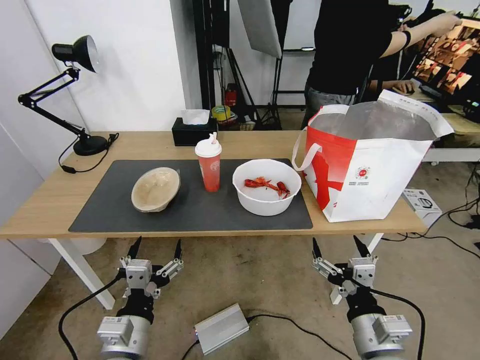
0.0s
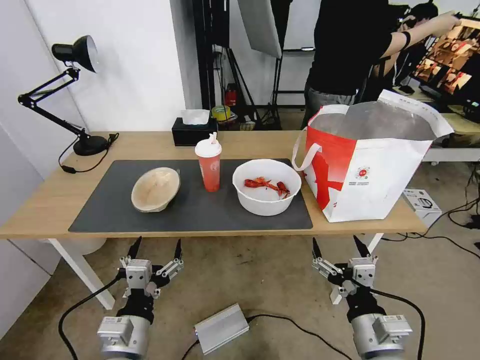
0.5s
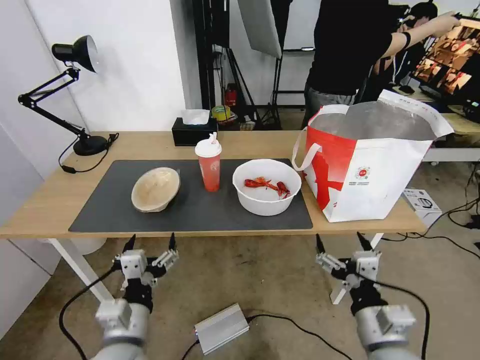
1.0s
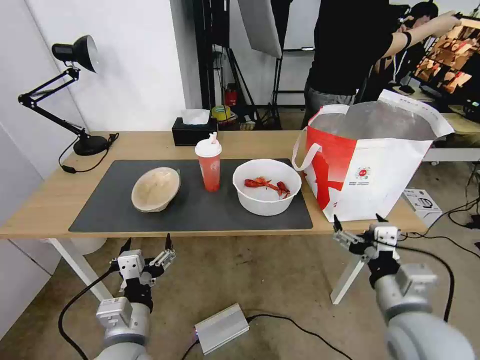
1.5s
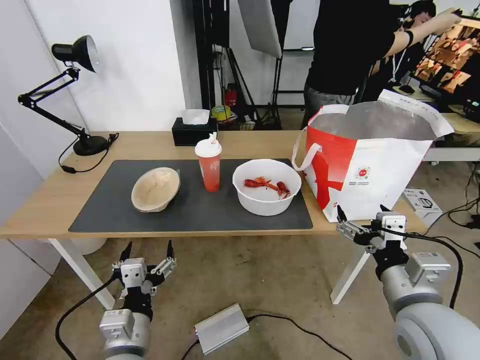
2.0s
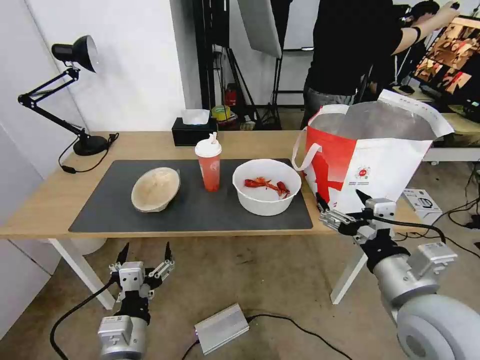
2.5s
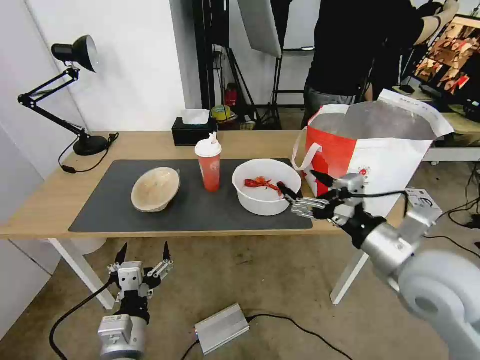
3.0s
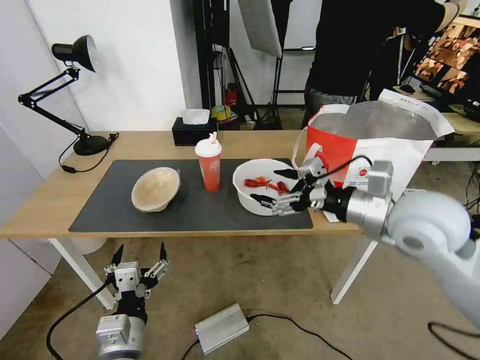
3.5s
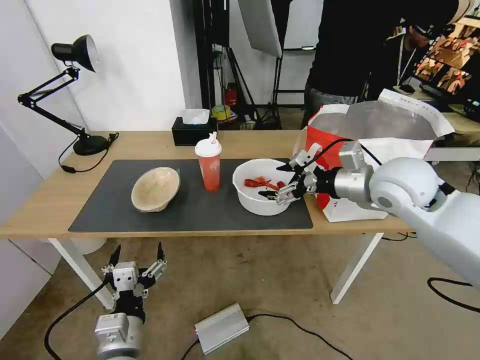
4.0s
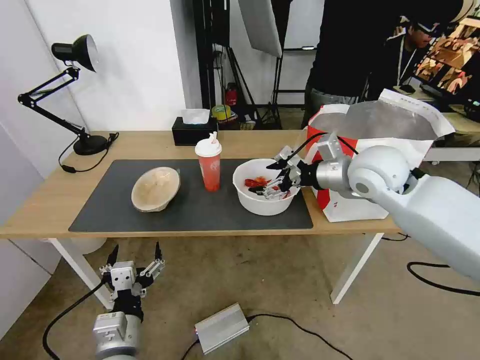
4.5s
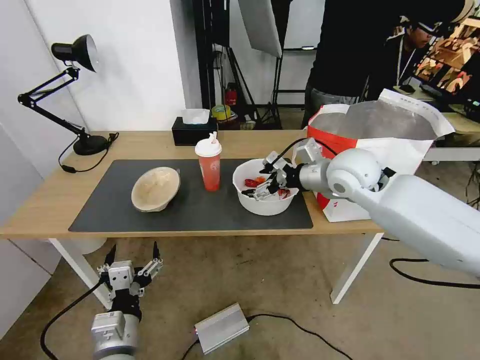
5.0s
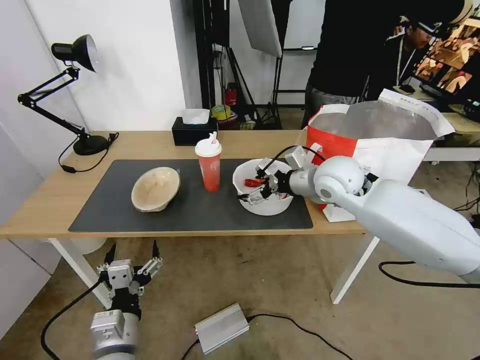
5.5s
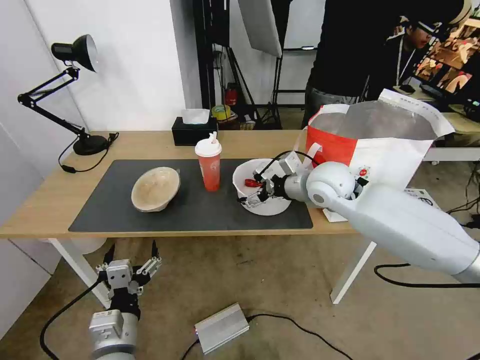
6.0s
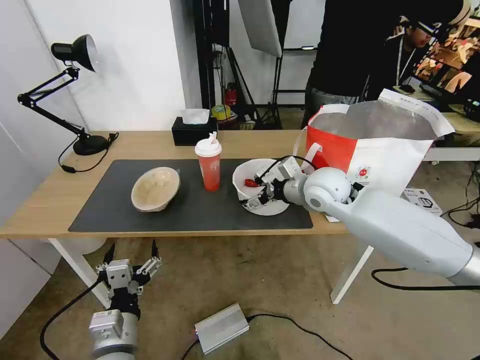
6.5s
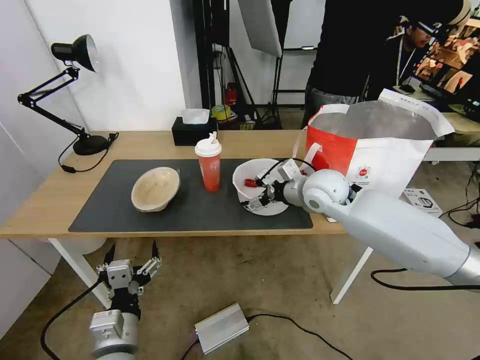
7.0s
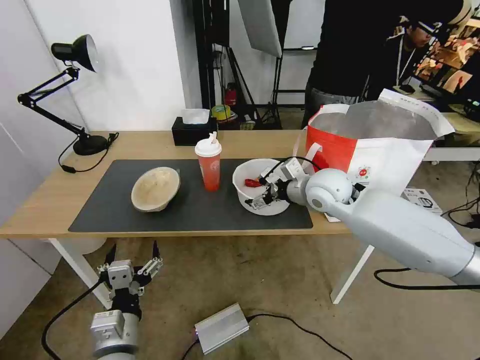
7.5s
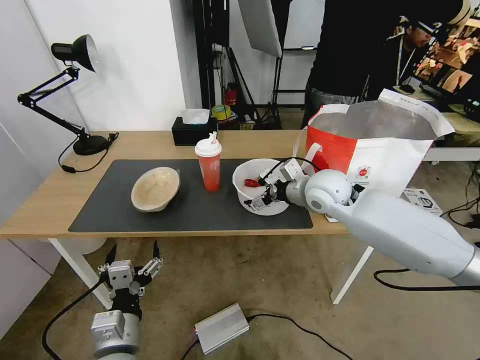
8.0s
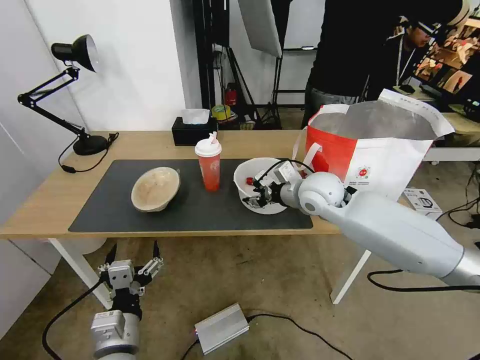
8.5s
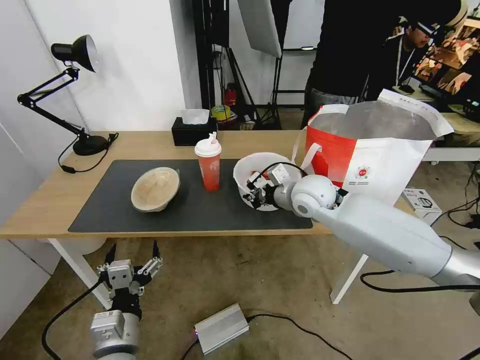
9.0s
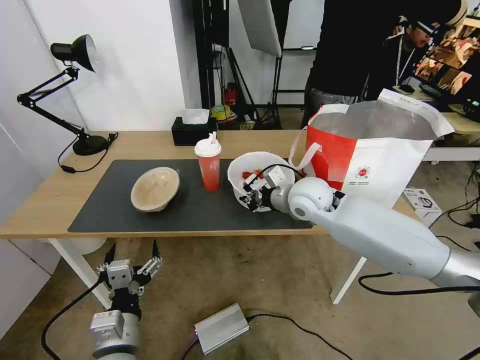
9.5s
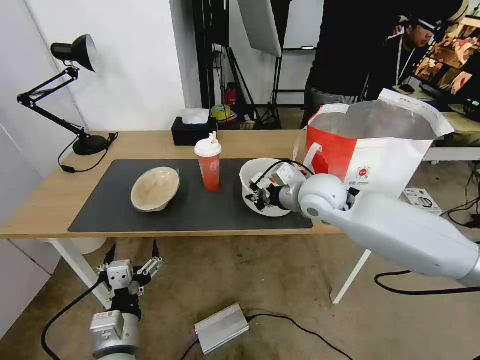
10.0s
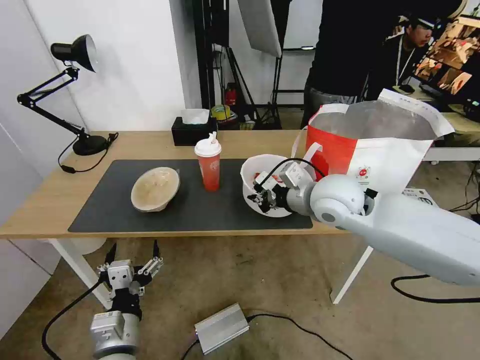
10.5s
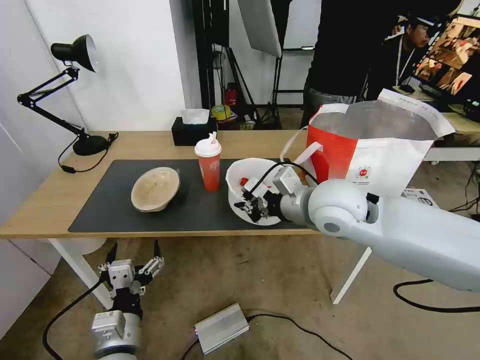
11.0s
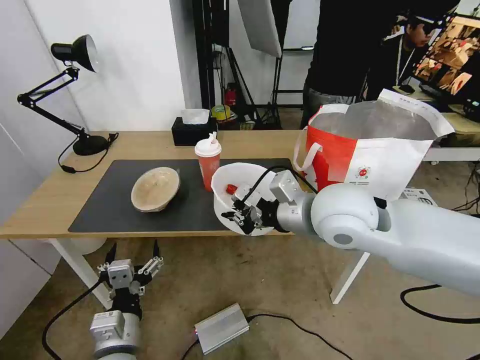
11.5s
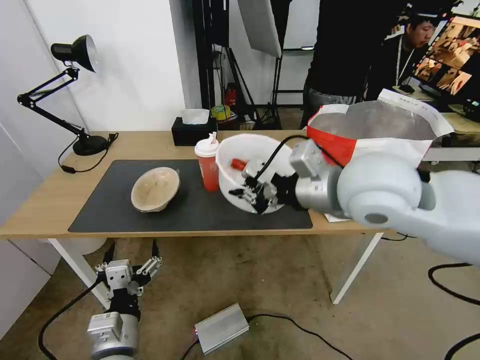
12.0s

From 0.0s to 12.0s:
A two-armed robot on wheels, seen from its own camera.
Task of the whole recording: Pick up the trash from the table and place it into the takeout bag.
From 2.0s to 4.0s: The right gripper is displaced forward and upward by about 25 cm.
From 4.0s to 6.0s: The right gripper is displaced to the left, forward and downward by approximately 15 cm.
From 6.0s to 8.0s: The grippers move only a little.
From 8.0s to 10.0s: The right gripper closes up.
From 10.0s to 12.0s: The right gripper moves upward and backward, roughly 15 cm.

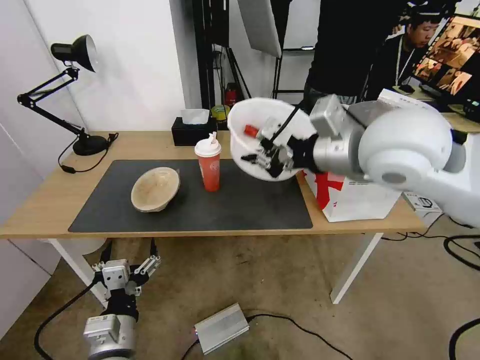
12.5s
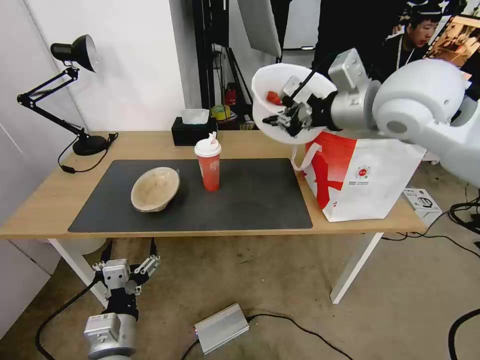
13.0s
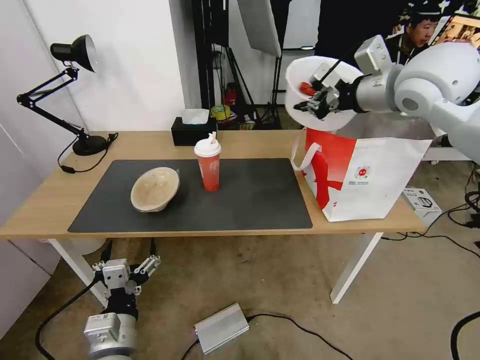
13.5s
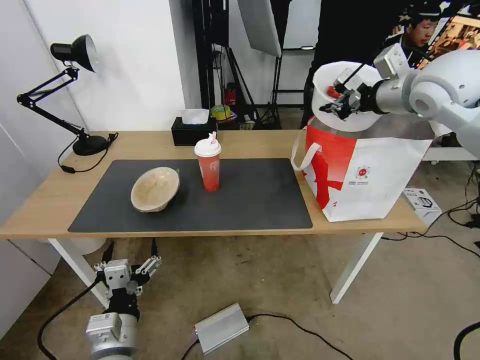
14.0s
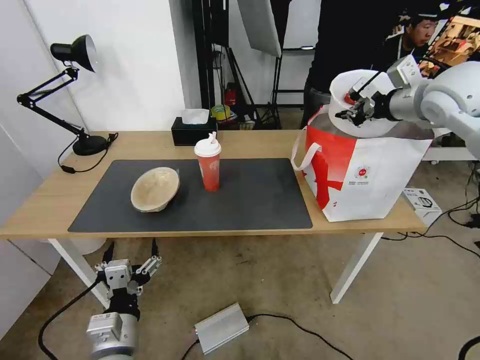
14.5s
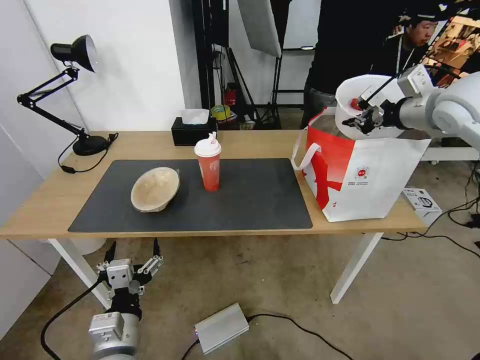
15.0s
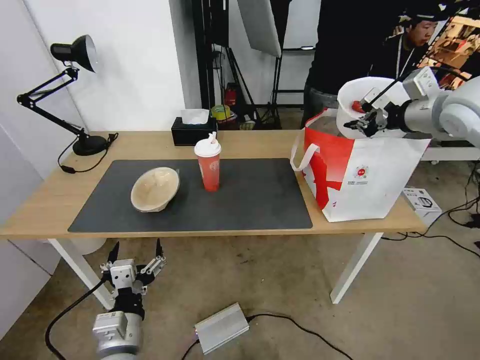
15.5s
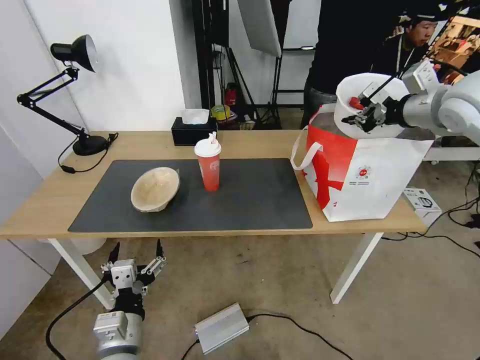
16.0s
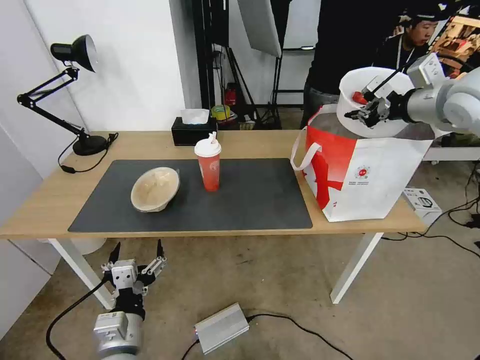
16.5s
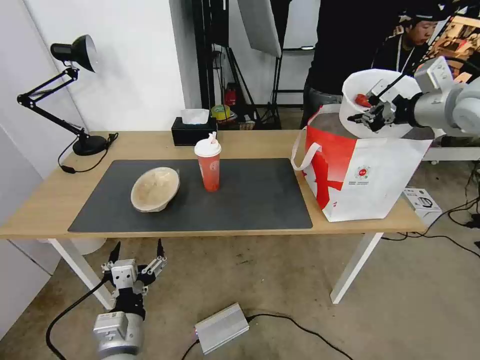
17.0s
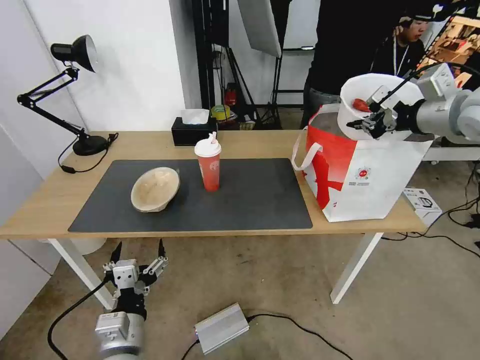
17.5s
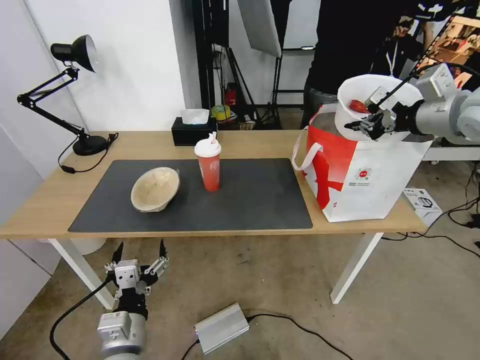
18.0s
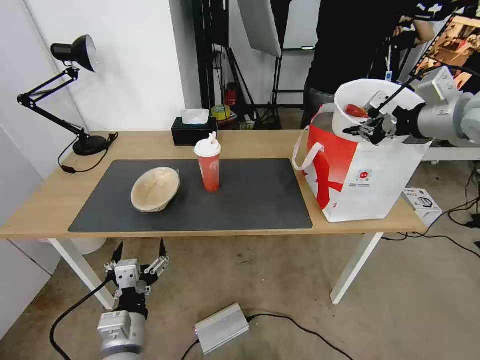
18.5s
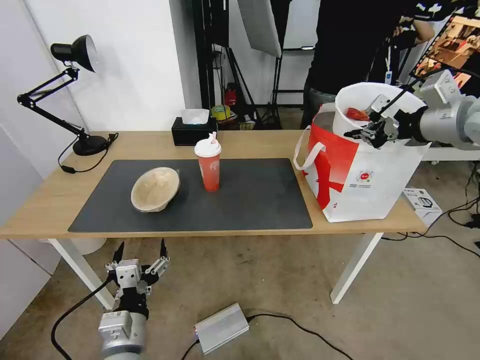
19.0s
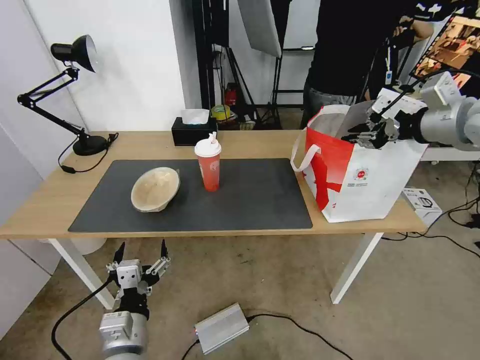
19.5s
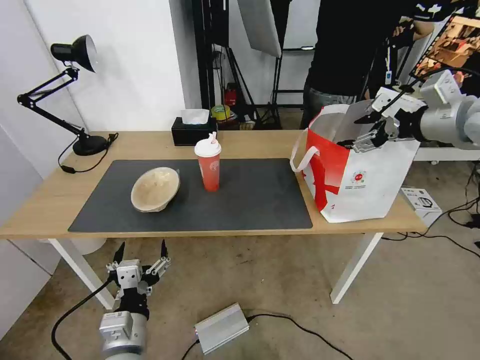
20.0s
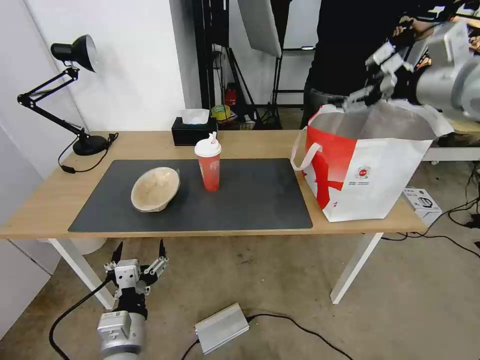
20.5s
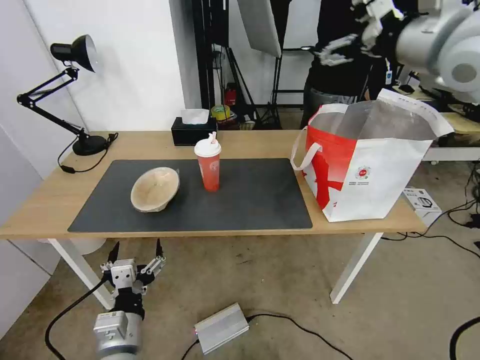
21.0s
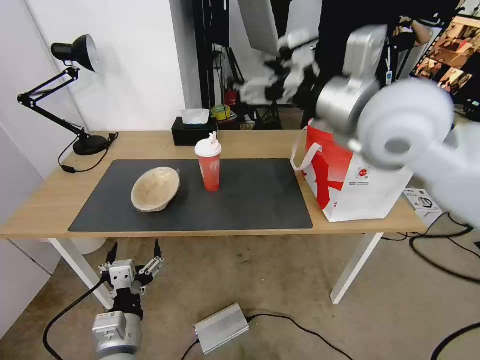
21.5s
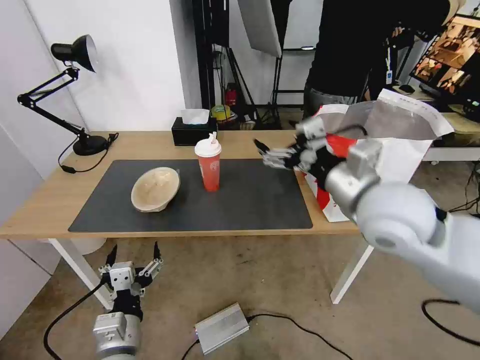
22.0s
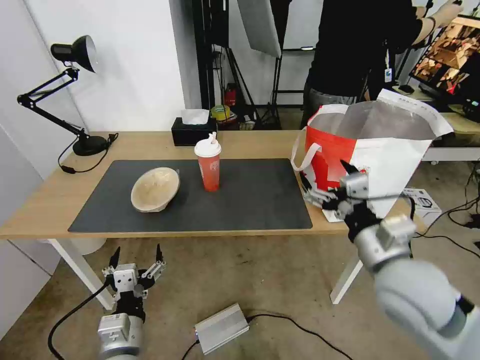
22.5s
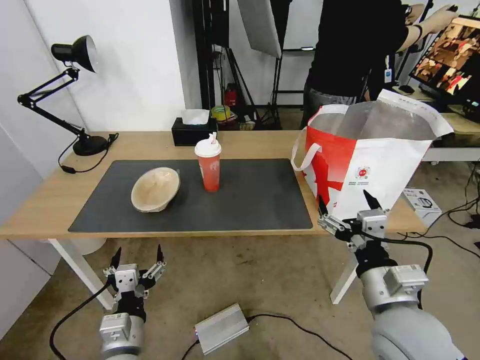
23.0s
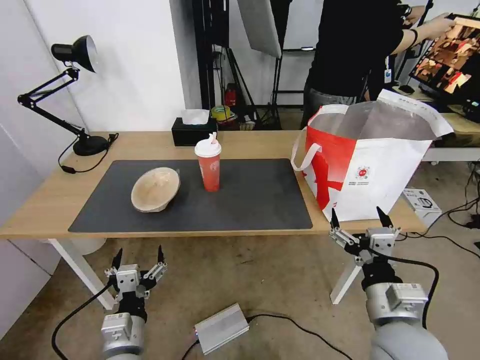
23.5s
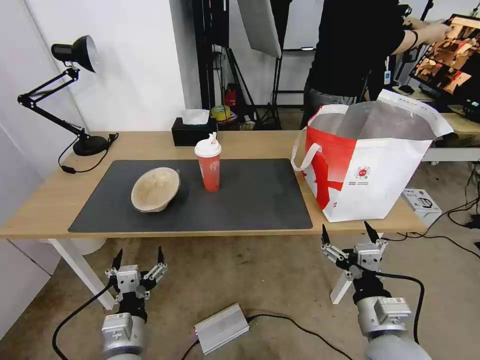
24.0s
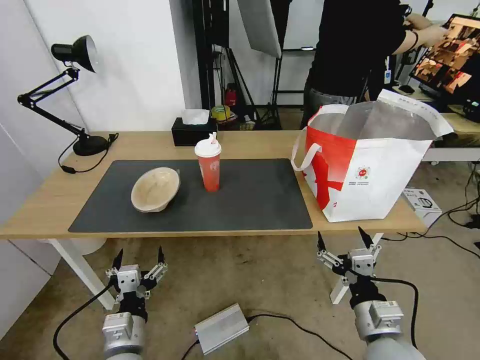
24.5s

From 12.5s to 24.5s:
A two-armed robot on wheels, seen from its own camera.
Task of the whole recording: Pick up the trash from the table and place it into the takeout bag.
From 12.5s to 14.5s: The right gripper goes about 20 cm to the right and forward.
From 14.5s to 16.5s: There are only small adjustments of the grippers.
From 16.5s to 18.5s: There are only small adjustments of the grippers.
From 18.5s to 20.5s: The right gripper opens.
From 20.5s to 22.5s: The right gripper heads downward, backward and to the left, covering some 30 cm.
From 22.5s to 24.5s: The right gripper is displaced downward and backward by roughly 15 cm.

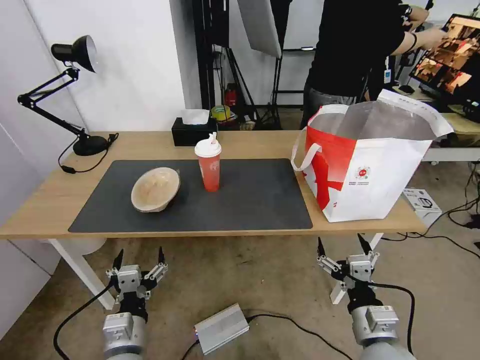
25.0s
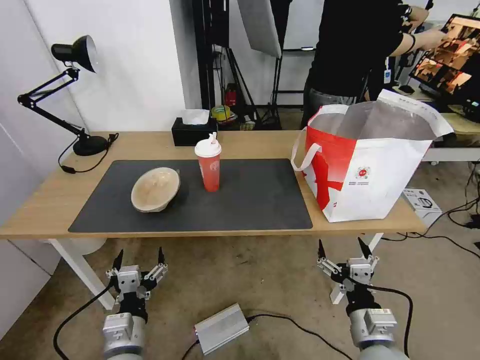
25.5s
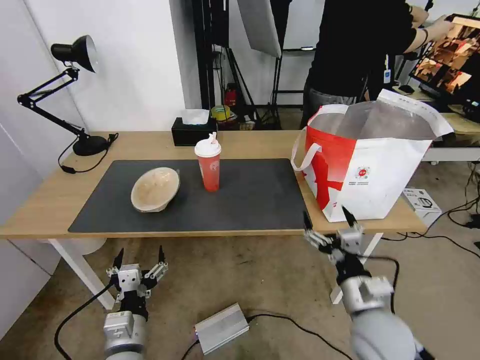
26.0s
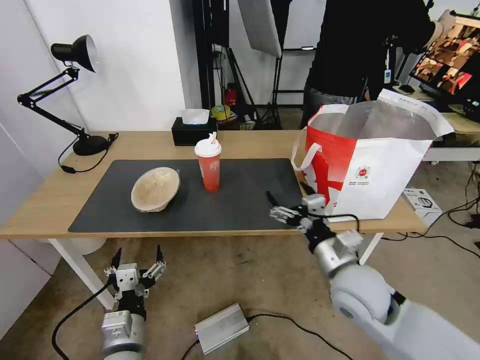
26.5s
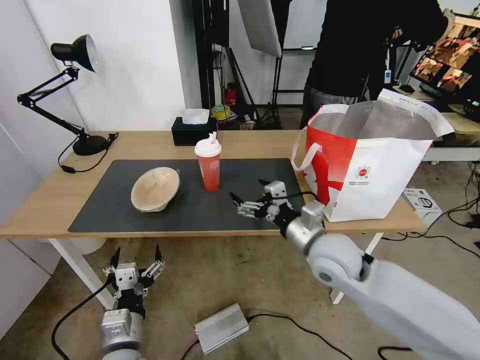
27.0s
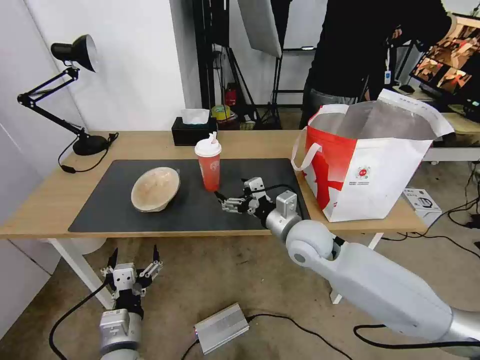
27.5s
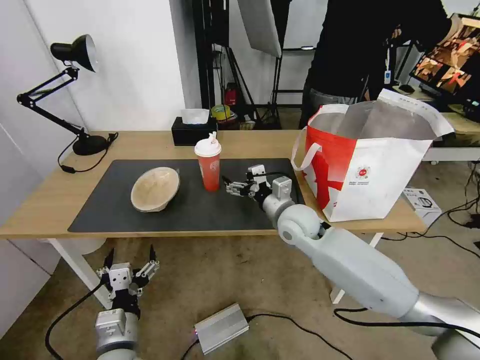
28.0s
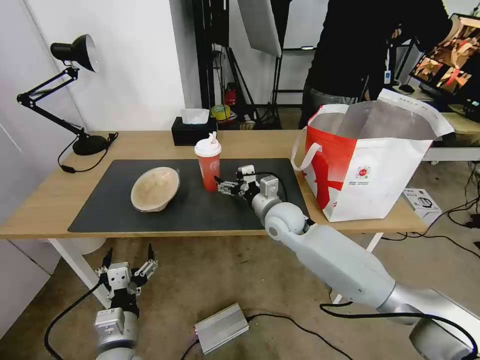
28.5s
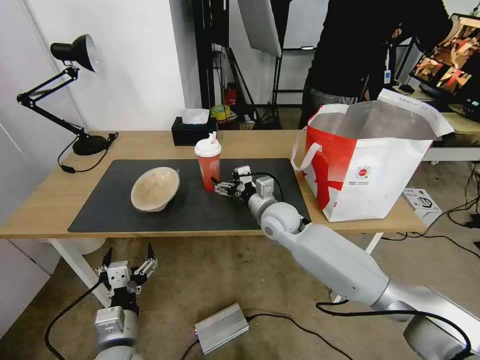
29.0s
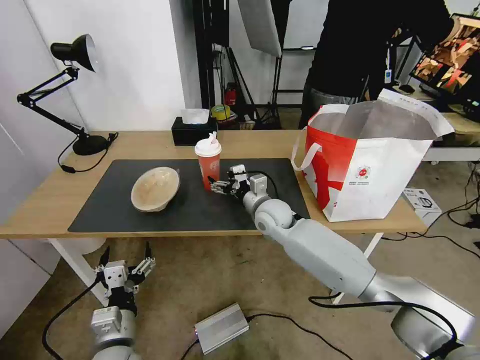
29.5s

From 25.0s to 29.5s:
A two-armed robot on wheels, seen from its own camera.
Task of the whole recording: Pick up the trash from the table and place it into the takeout bag.
From 25.0s to 27.0s: The right gripper moves forward, upward and to the left, roughly 20 cm.
From 27.0s to 29.5s: The right gripper travels forward and to the left by roughly 20 cm.
